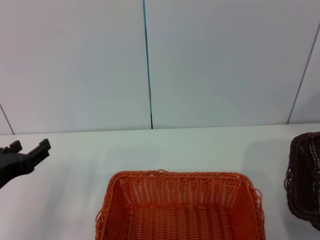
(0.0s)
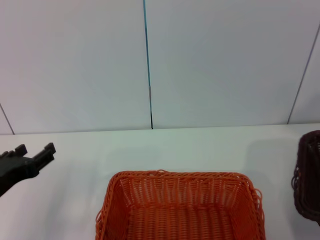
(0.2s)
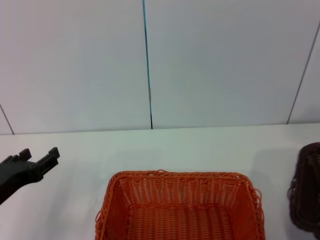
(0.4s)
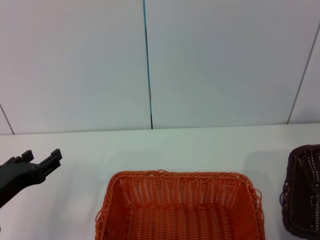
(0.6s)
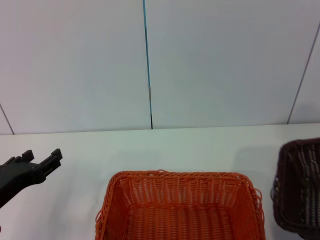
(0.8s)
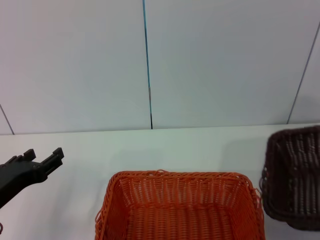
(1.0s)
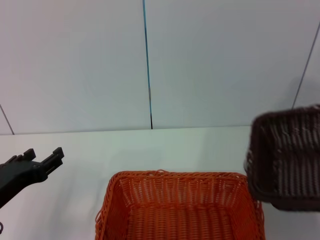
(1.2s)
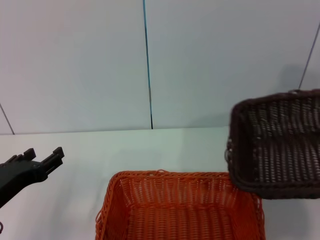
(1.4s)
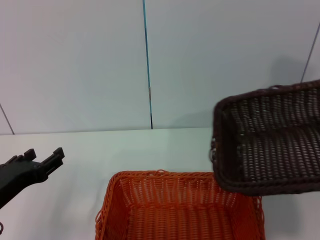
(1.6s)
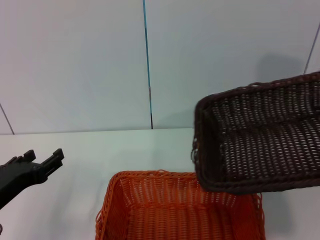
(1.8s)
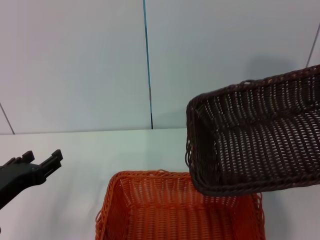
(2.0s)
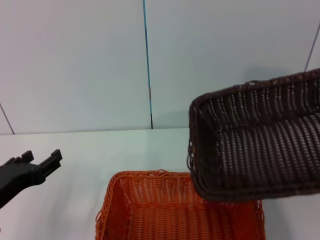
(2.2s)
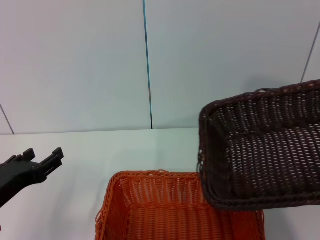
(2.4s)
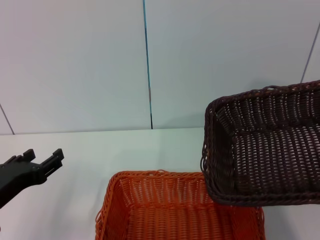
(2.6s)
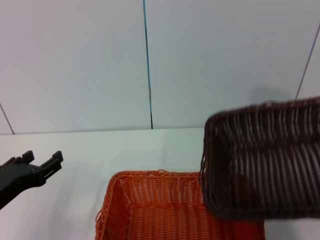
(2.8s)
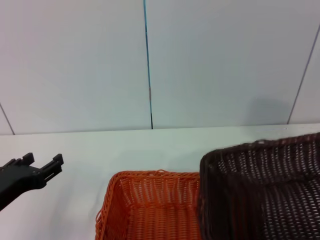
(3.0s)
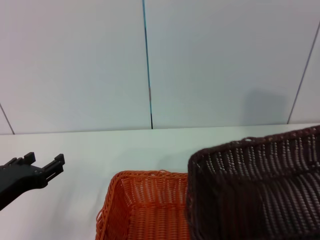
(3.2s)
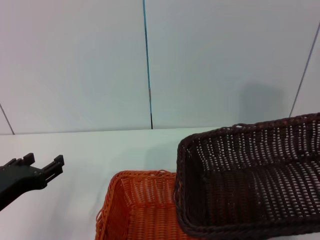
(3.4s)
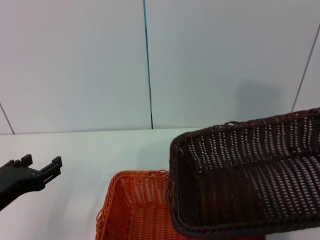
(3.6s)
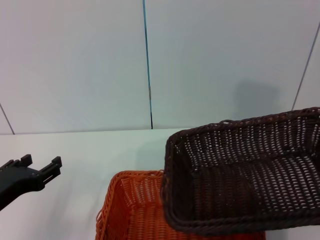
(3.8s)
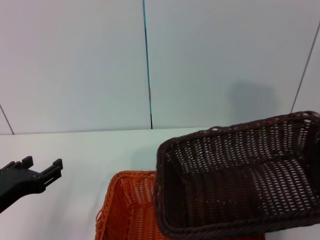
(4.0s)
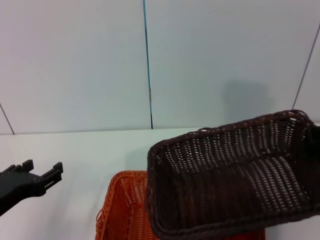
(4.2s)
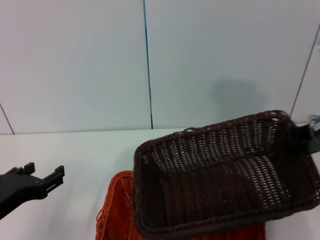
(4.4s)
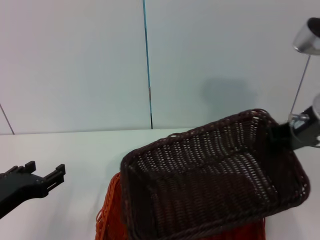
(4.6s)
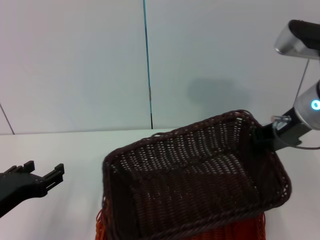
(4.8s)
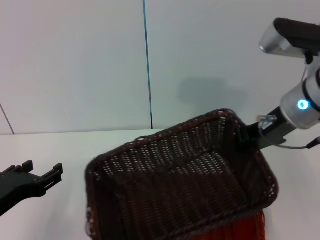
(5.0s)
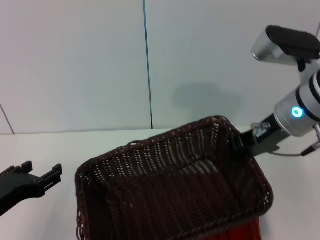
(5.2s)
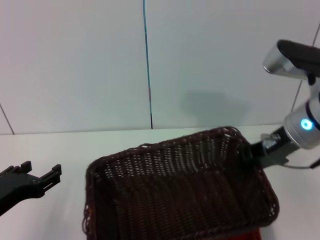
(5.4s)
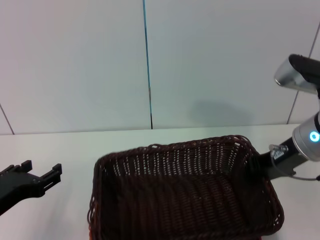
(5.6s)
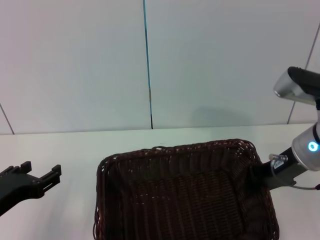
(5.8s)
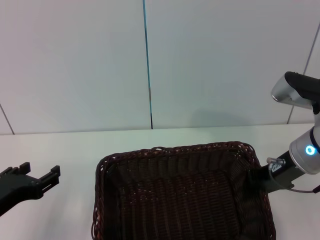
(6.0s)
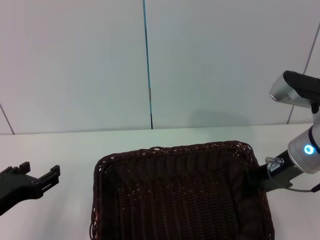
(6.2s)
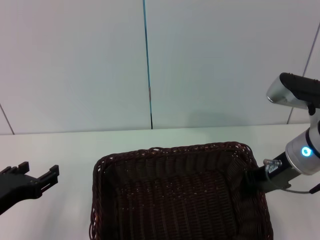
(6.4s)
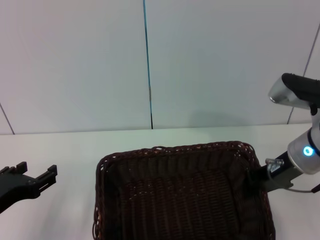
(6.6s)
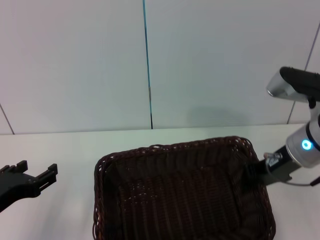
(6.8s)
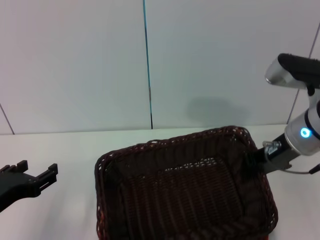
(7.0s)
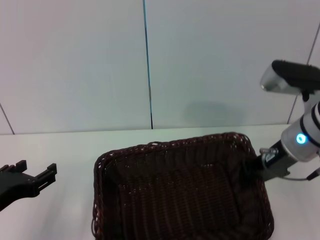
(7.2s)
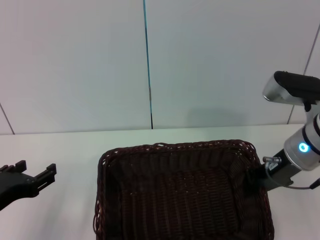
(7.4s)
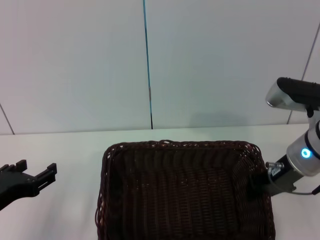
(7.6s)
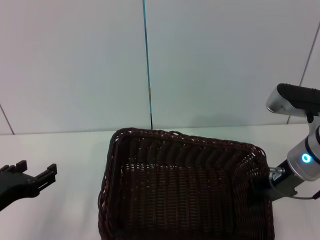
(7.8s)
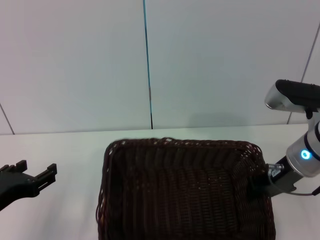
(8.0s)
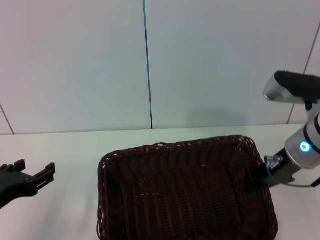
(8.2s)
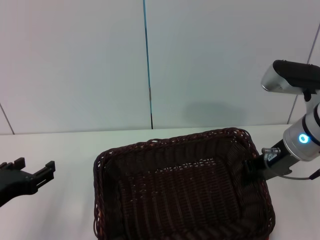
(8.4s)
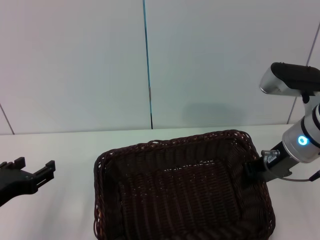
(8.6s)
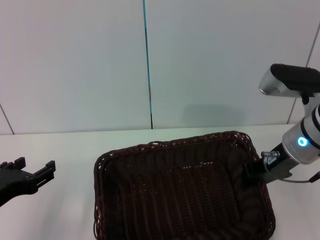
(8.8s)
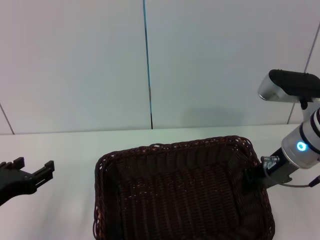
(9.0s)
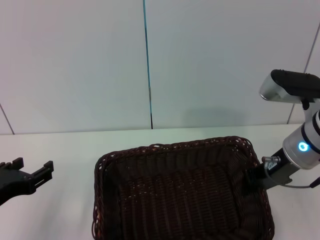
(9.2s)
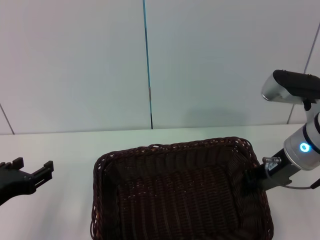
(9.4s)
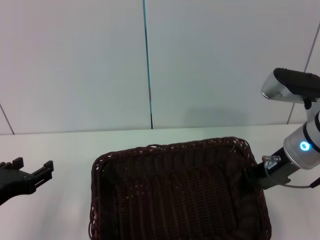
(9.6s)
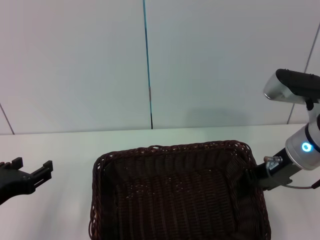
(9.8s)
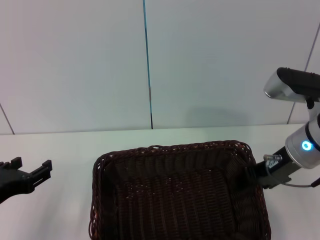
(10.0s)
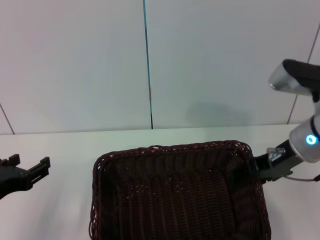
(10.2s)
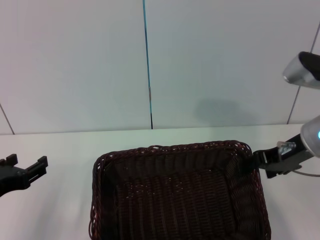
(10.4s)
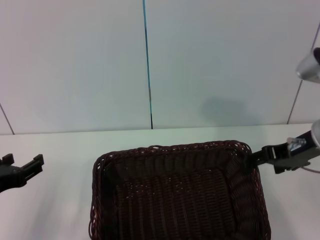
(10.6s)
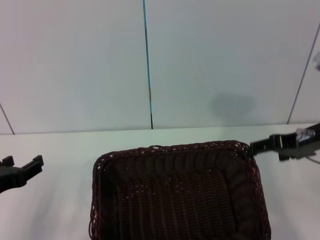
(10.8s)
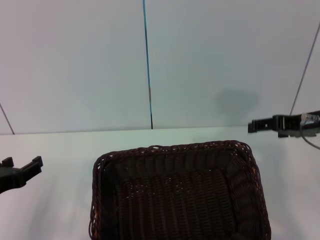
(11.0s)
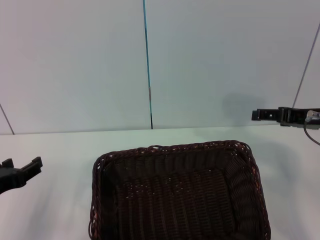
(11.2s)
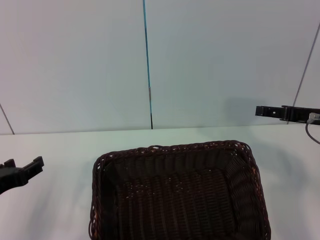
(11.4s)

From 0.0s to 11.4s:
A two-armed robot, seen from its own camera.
Step, from 0.0s to 9.8s: Place the dark basket on the light basket with the right gripper.
From 0.0s to 1.4s: The right gripper shifts some 5 cm to the left.
From 1.4s to 2.8s: The right gripper moves about 5 cm.
From 2.8s to 4.2s: The right gripper shifts approximately 10 cm forward and to the left.
From 4.2s to 5.6s: The right gripper goes some 10 cm downward and to the left.
From 5.6s to 8.6s: The grippers make only small movements.
From 8.6s to 10.0s: The two grippers keep their place.
From 10.0s to 11.4s: The right gripper shifts roughly 5 cm to the right, and opens up.
